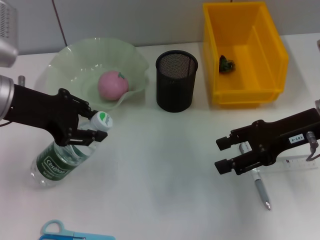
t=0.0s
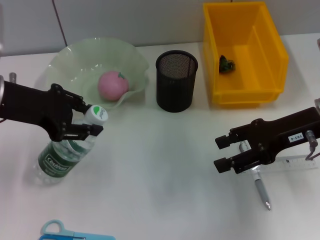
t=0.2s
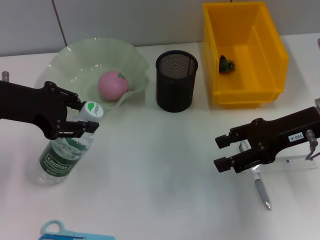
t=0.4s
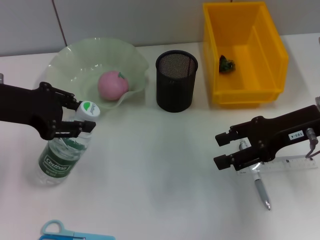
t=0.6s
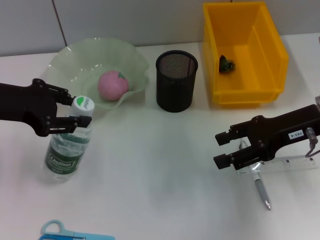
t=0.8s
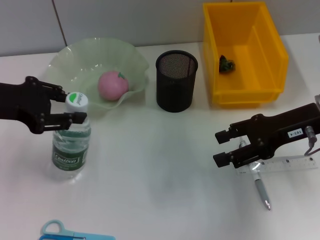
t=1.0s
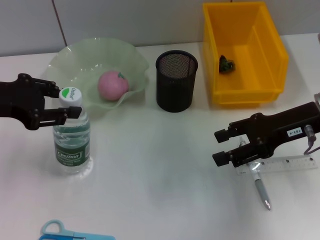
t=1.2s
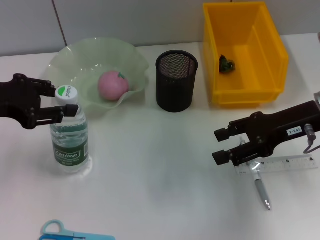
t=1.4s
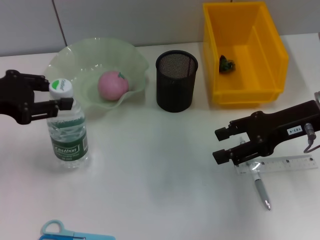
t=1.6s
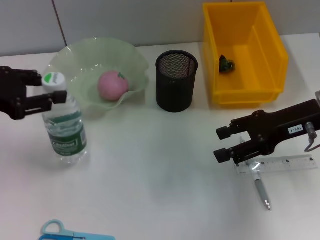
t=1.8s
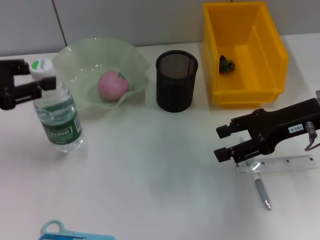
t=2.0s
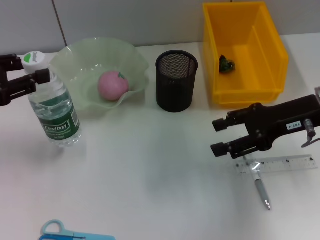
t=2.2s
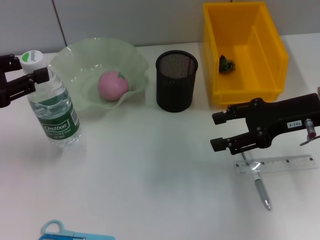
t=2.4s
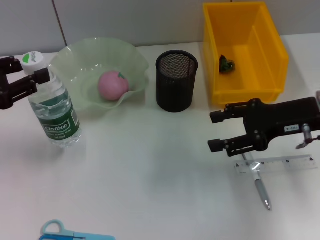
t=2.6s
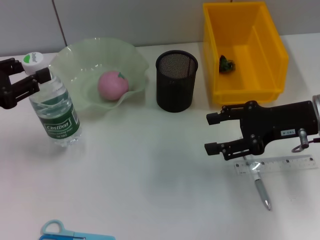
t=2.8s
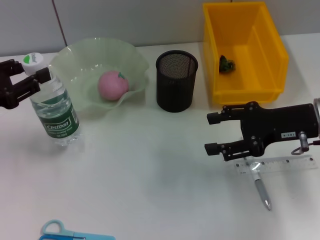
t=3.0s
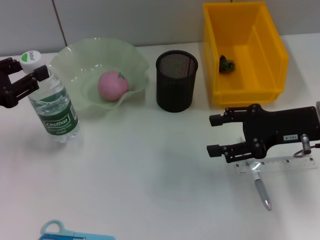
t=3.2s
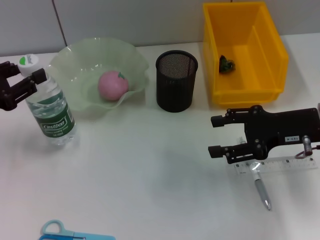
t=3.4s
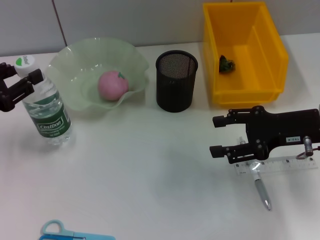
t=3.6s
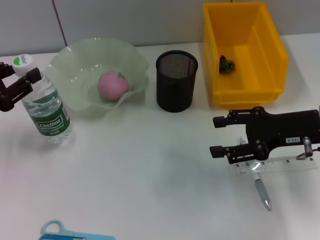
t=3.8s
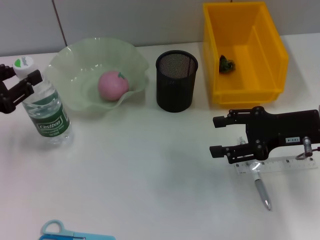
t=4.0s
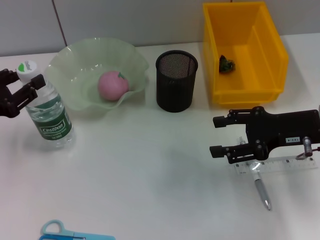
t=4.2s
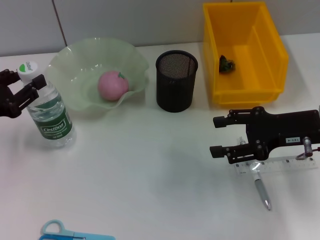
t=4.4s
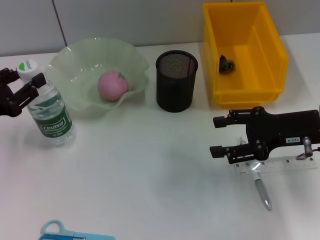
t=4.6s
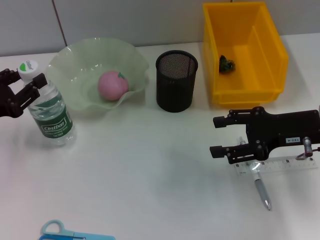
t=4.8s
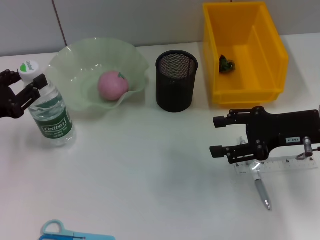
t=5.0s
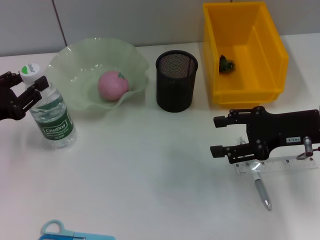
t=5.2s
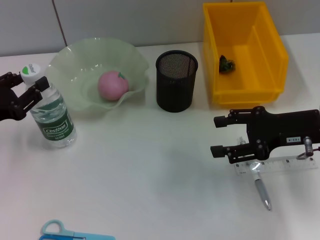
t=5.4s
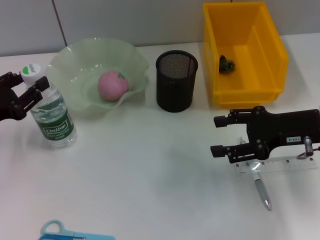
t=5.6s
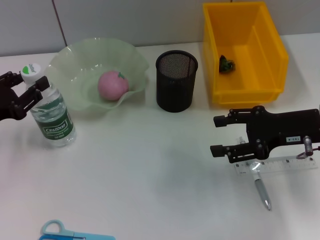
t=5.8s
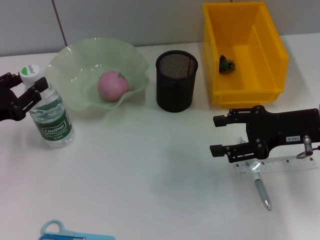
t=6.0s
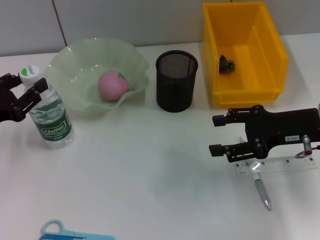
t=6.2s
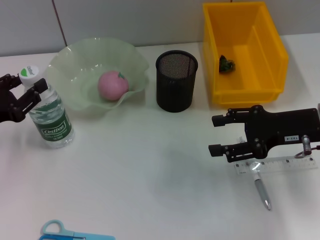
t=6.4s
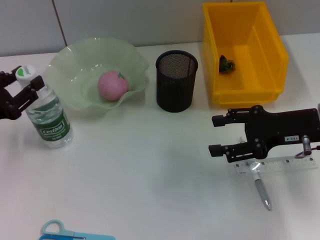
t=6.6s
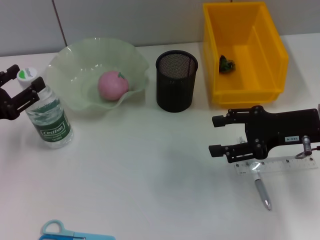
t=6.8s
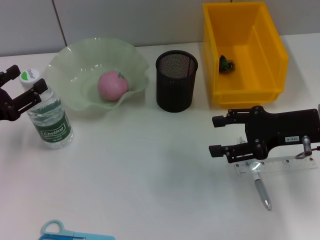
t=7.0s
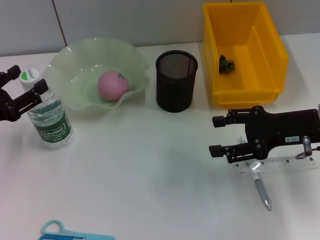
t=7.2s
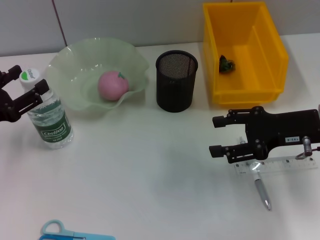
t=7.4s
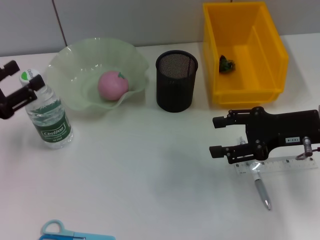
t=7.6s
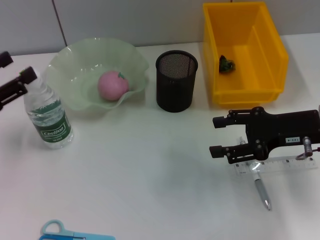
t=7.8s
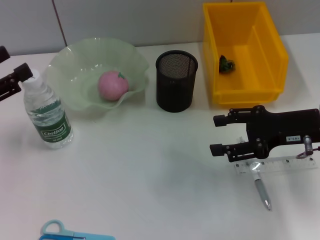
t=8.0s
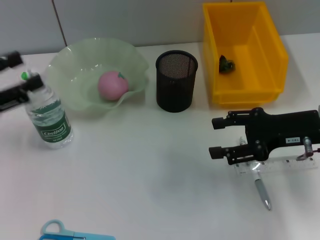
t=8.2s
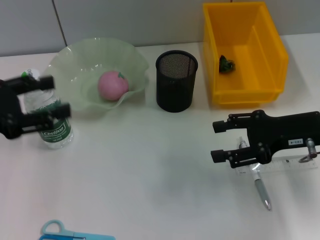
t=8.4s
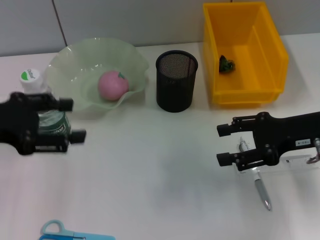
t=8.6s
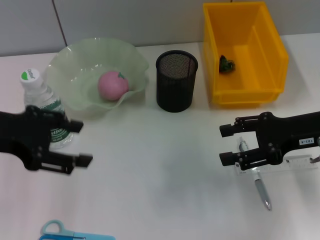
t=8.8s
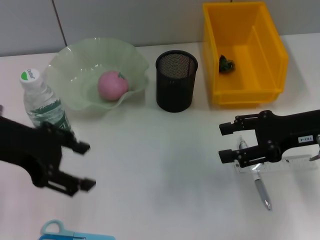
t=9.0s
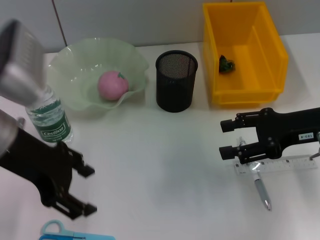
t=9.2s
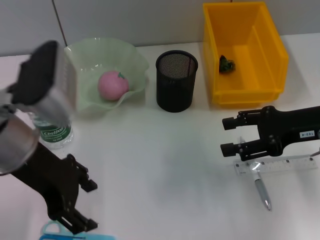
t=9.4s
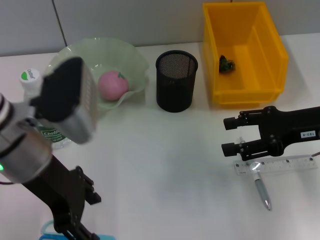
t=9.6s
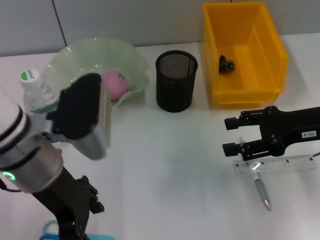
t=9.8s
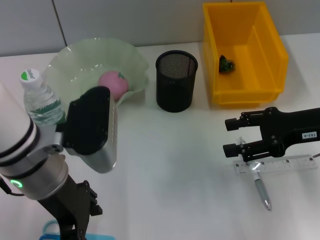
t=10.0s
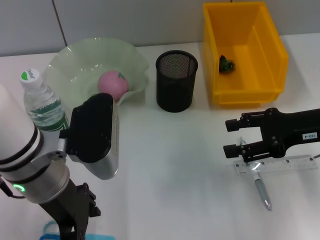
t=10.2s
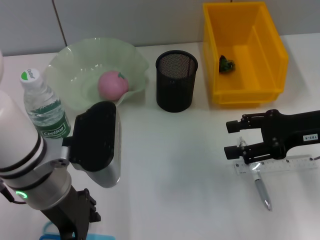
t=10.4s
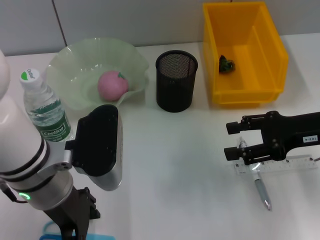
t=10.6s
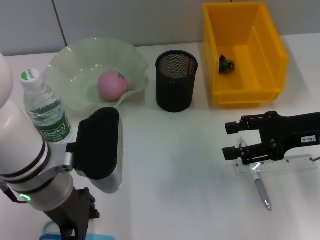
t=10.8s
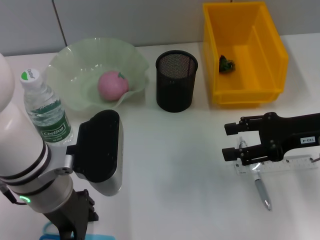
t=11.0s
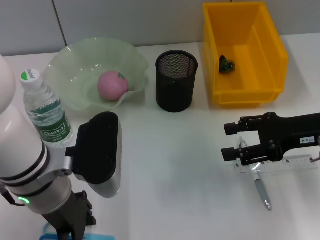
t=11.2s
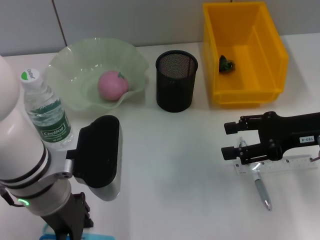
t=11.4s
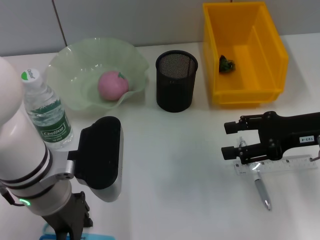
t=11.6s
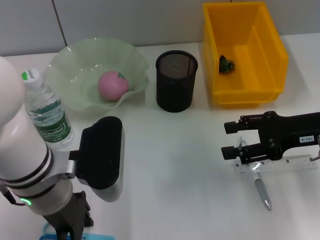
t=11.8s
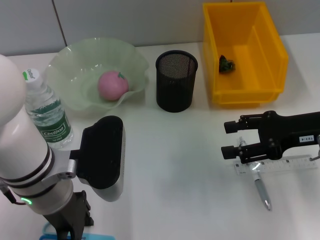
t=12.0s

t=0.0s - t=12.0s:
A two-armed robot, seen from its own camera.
Step, t=0.0s - t=7.2s: Place the water bottle on the table with the left hand.
t=0.0s - t=1.6s: The left gripper shifts about 5 cm to the left.
t=1.6s - t=3.0s: The left gripper changes place by roughly 5 cm.
t=3.0s - t=4.4s: The grippers stay close to where they were, moving slightly.
t=4.4s - t=6.0s: The two grippers keep their place.
t=6.0s - t=7.6s: The left gripper opens.
t=7.6s - t=9.0s: The left gripper shifts some 15 cm upward and to the right.
t=9.0s - t=10.4s: The left gripper is displaced to the right and downward by some 10 cm.
t=10.4s - t=12.0s: The left gripper closes up.

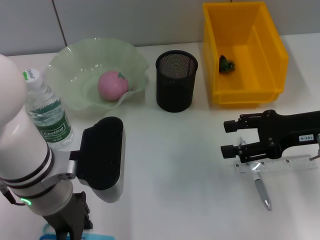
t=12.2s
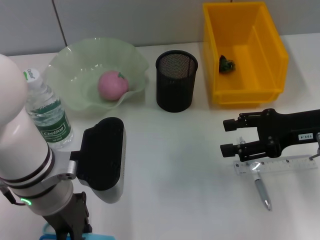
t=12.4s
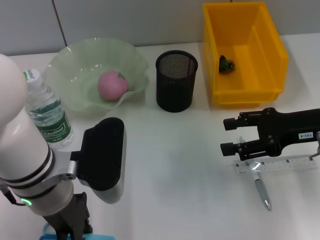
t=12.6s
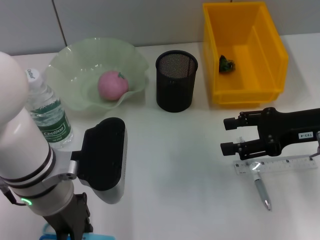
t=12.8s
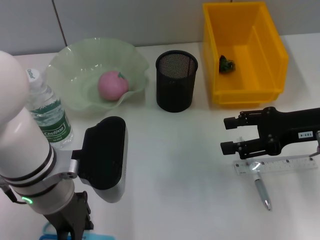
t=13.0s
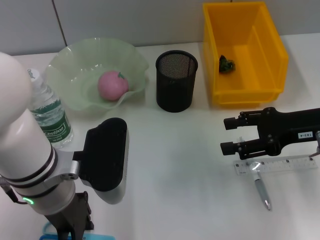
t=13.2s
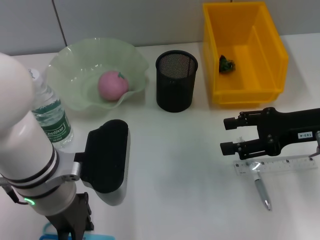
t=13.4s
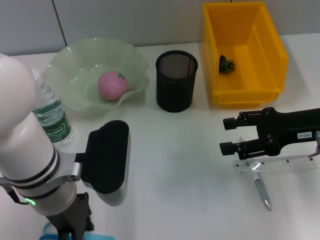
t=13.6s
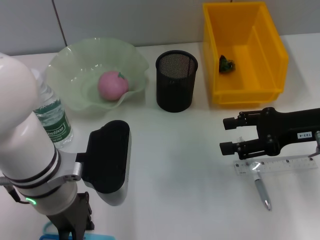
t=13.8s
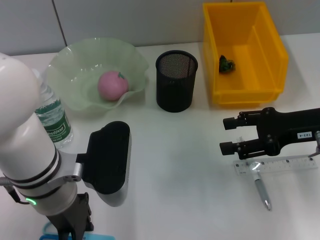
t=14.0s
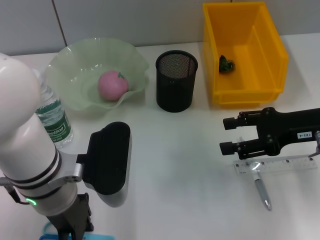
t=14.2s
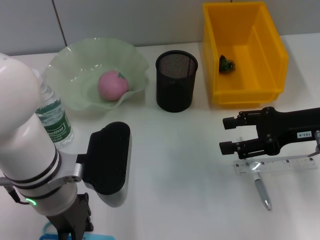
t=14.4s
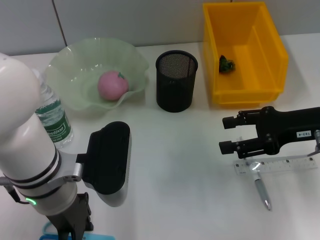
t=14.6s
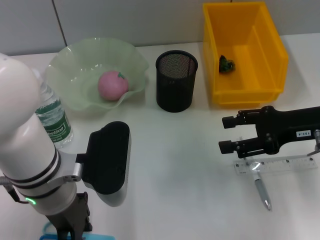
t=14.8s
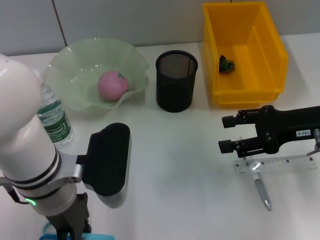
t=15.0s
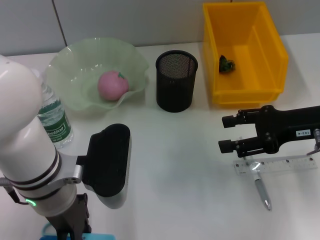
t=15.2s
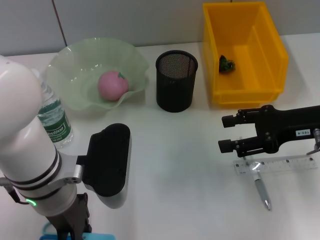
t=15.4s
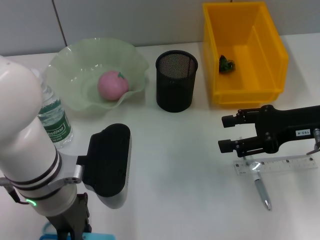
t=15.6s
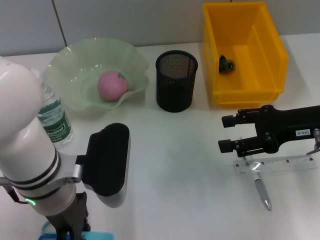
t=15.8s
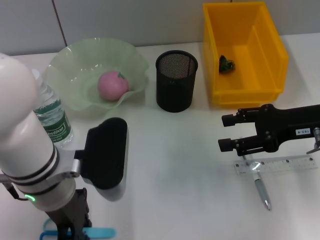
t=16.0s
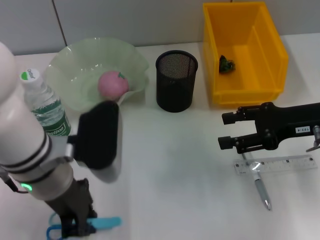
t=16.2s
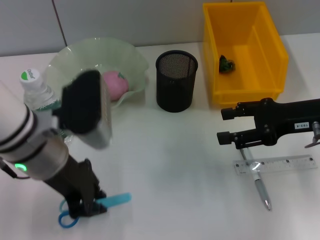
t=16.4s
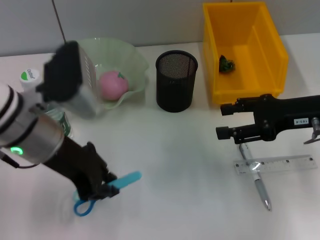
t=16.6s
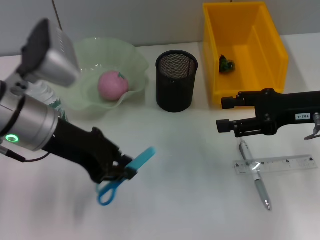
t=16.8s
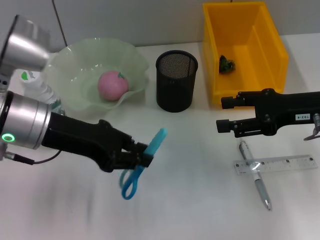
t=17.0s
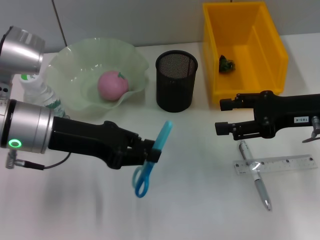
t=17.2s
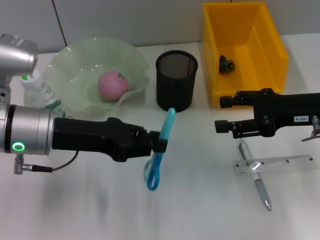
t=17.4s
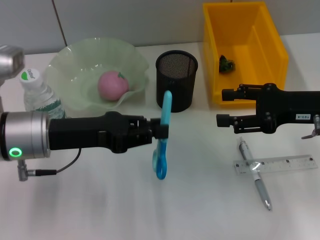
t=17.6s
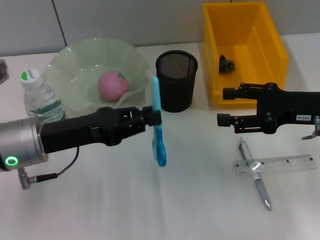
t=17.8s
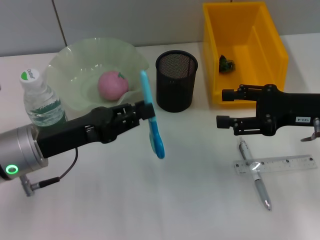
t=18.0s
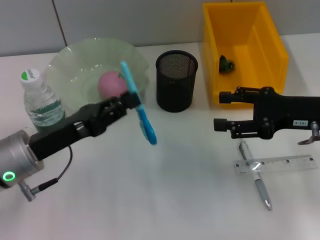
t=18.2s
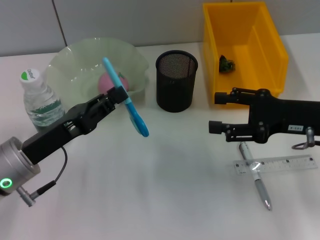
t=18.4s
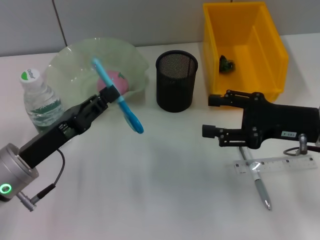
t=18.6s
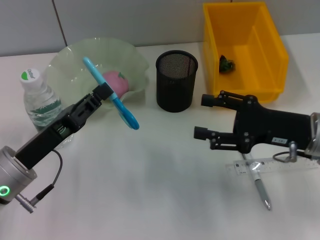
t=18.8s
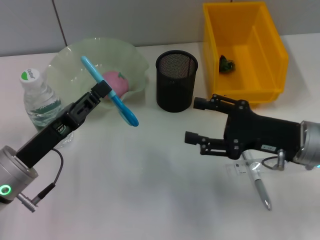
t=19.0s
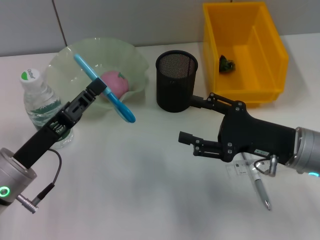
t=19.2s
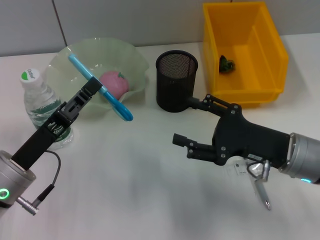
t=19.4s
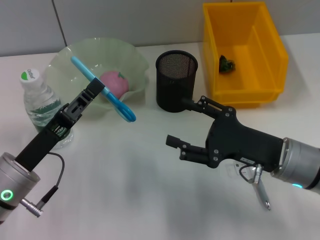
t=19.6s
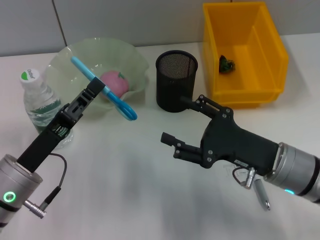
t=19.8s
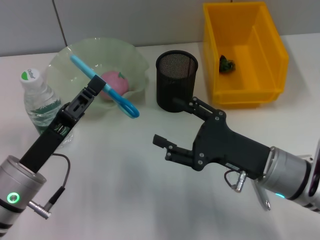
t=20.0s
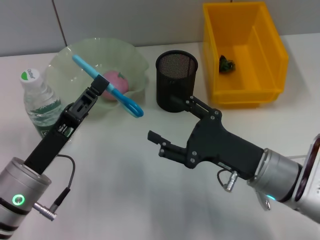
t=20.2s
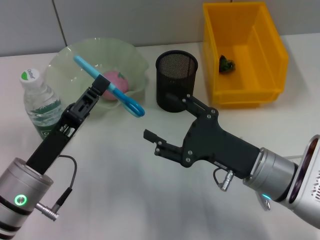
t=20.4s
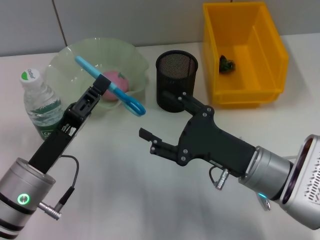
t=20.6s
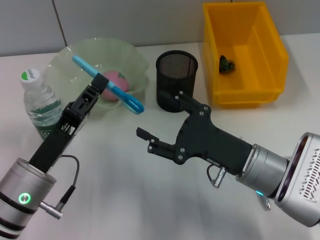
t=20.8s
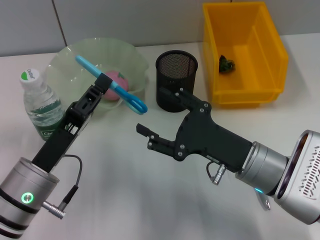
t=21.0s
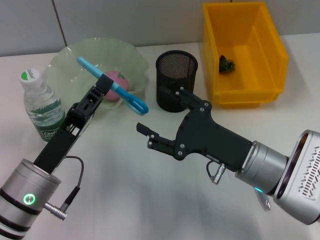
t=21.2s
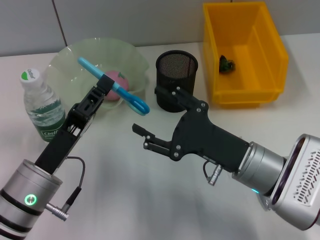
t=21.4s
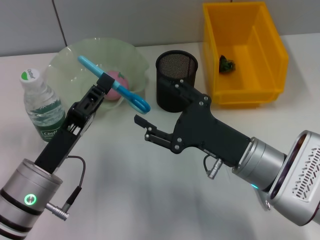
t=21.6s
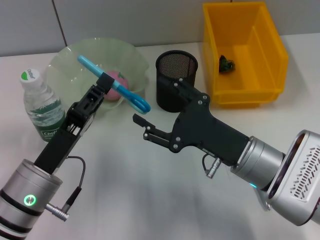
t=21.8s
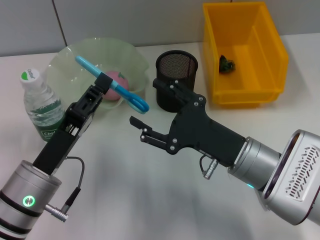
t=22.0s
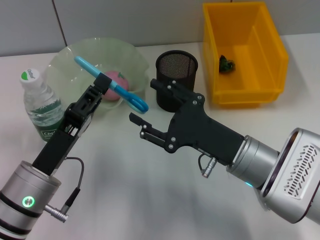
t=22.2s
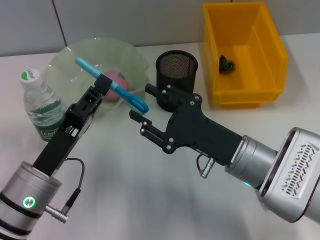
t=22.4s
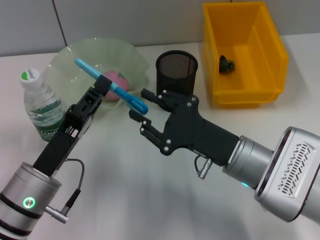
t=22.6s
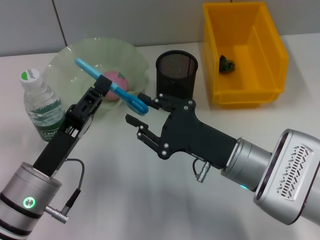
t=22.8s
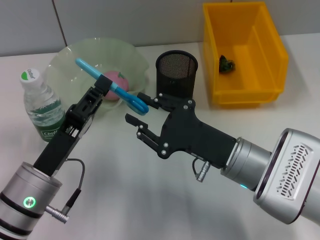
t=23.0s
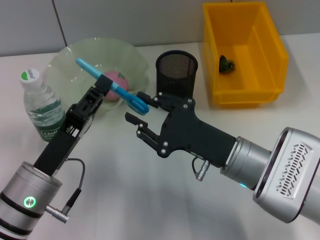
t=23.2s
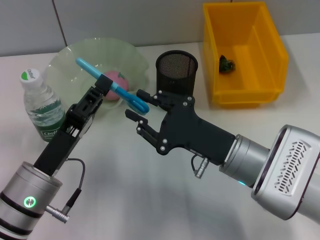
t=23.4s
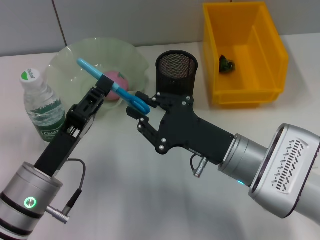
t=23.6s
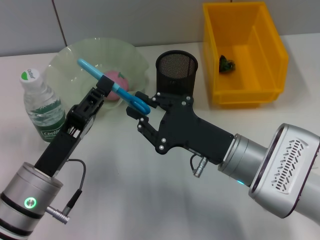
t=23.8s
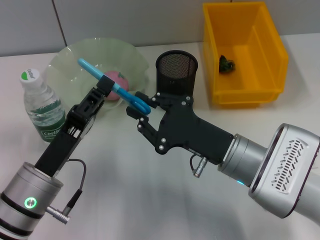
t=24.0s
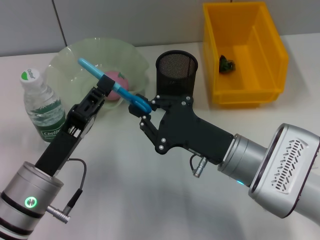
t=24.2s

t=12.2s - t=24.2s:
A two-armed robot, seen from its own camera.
Step, t=12.2s - t=15.6s: Grab the blue scissors with the left hand.
t=12.2s - t=15.2s: Both grippers stay put.
t=15.2s - t=16.6s: The left gripper moves roughly 5 cm.
t=16.6s - t=18.2s: The left gripper is displaced downward and to the left by some 10 cm.
t=18.2s - t=19.8s: The right gripper heads to the left, downward and backward, covering roughly 10 cm, while the left gripper shifts by approximately 5 cm.
t=21.2s - t=22.6s: The right gripper closes its fingers.
t=22.6s - t=24.2s: The right gripper closes its fingers.
